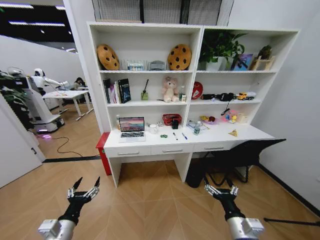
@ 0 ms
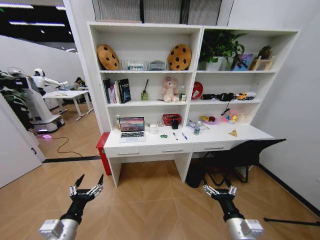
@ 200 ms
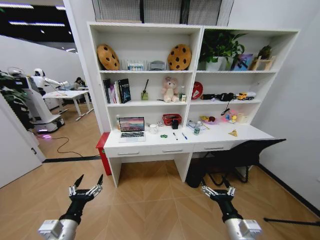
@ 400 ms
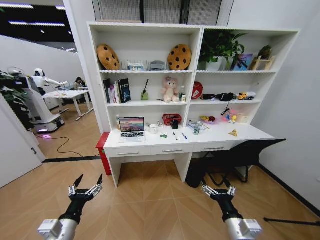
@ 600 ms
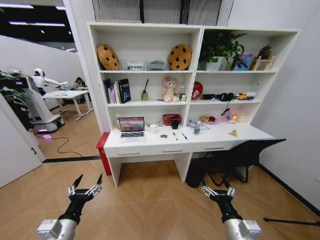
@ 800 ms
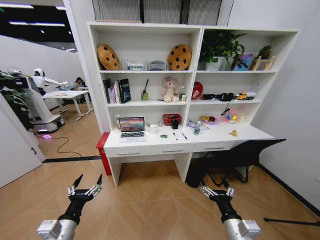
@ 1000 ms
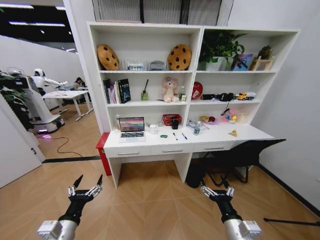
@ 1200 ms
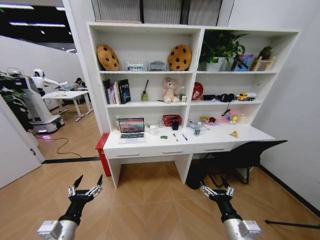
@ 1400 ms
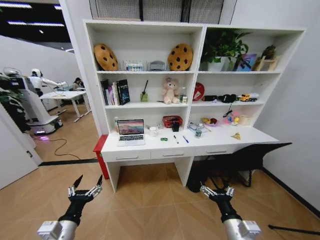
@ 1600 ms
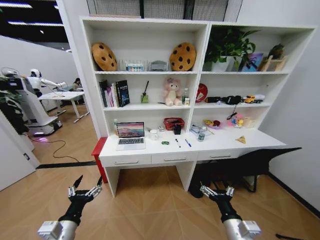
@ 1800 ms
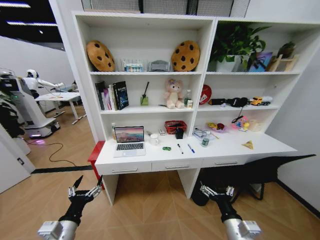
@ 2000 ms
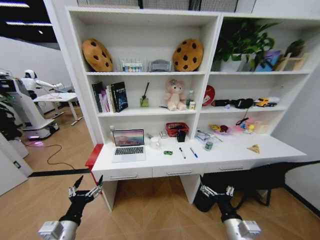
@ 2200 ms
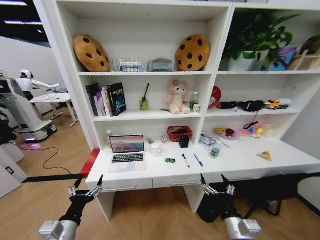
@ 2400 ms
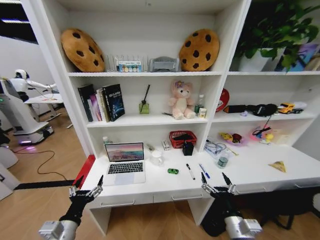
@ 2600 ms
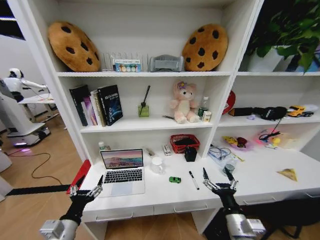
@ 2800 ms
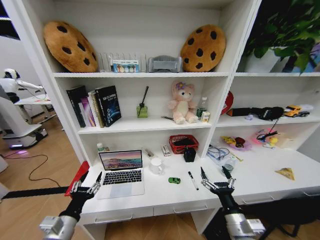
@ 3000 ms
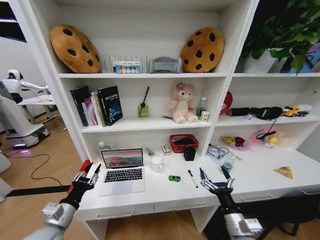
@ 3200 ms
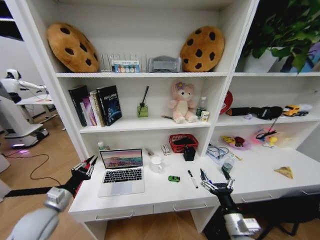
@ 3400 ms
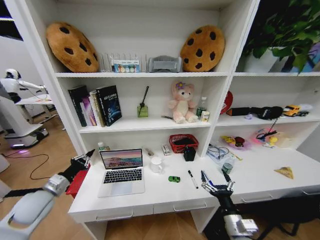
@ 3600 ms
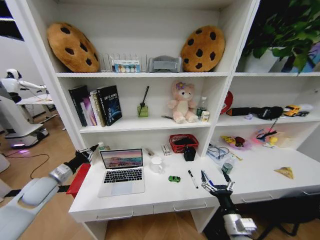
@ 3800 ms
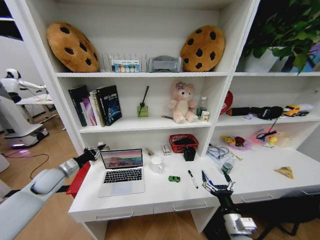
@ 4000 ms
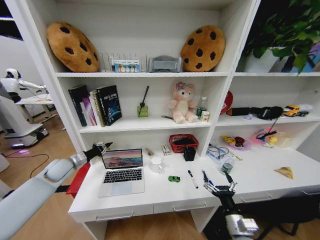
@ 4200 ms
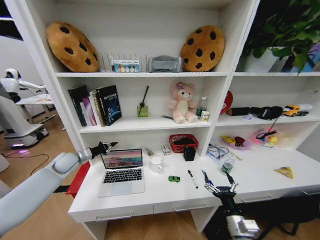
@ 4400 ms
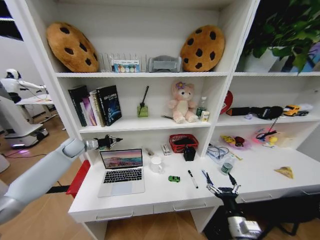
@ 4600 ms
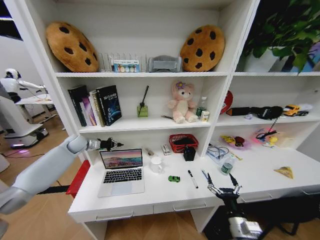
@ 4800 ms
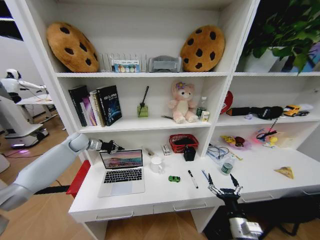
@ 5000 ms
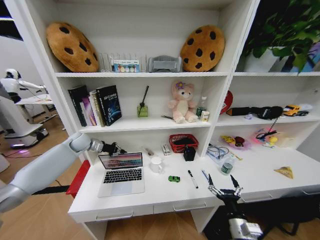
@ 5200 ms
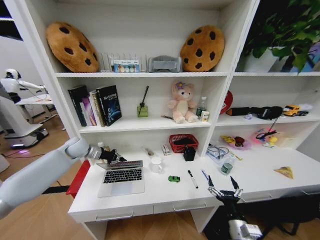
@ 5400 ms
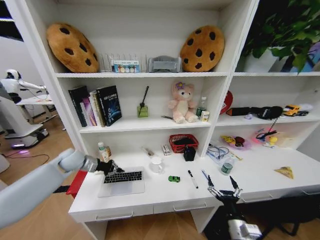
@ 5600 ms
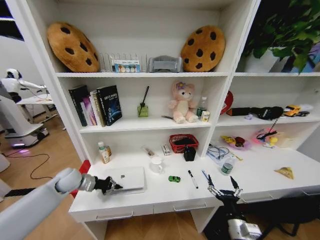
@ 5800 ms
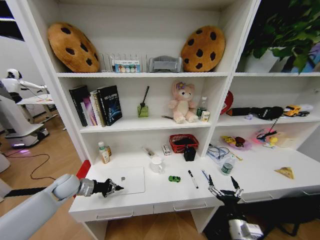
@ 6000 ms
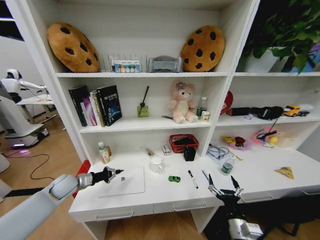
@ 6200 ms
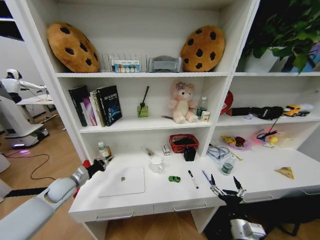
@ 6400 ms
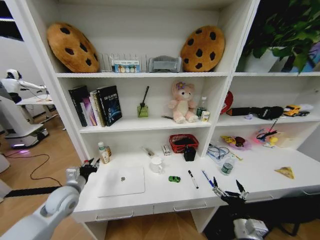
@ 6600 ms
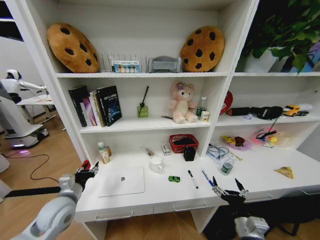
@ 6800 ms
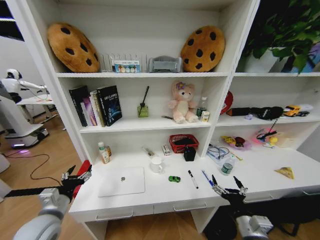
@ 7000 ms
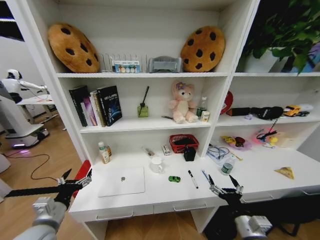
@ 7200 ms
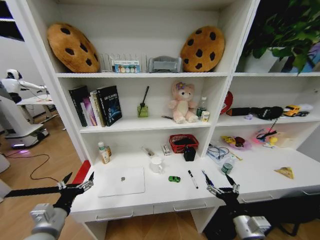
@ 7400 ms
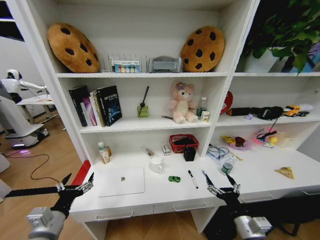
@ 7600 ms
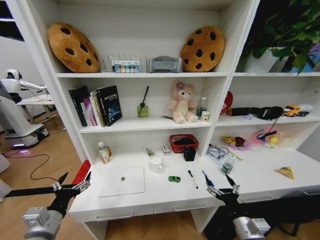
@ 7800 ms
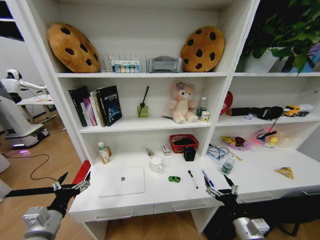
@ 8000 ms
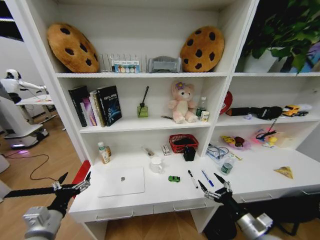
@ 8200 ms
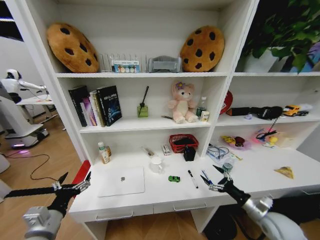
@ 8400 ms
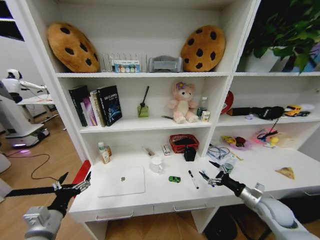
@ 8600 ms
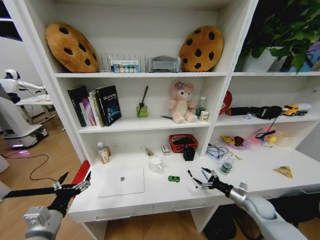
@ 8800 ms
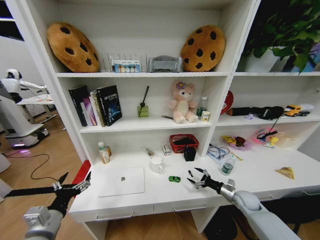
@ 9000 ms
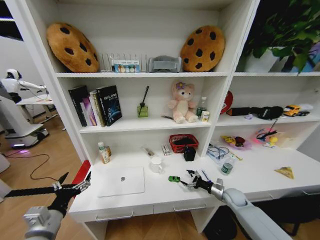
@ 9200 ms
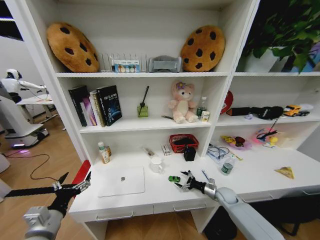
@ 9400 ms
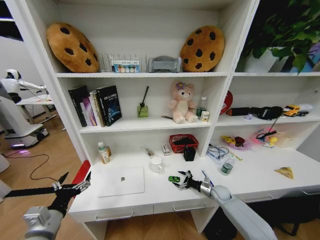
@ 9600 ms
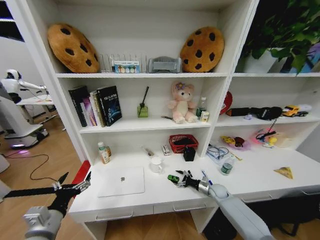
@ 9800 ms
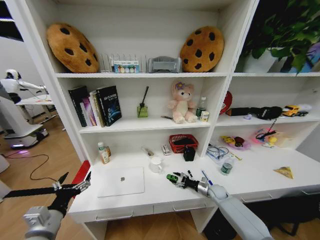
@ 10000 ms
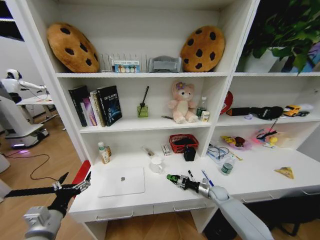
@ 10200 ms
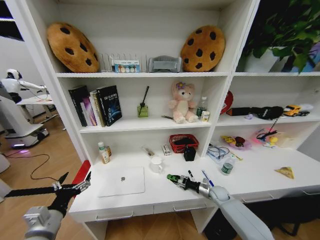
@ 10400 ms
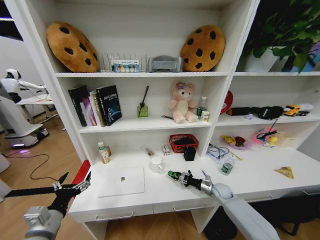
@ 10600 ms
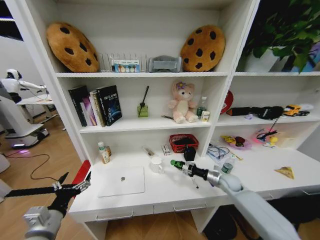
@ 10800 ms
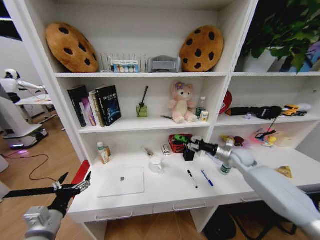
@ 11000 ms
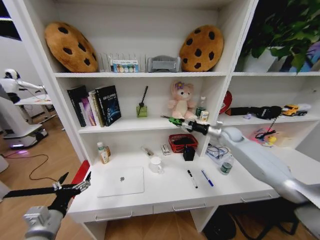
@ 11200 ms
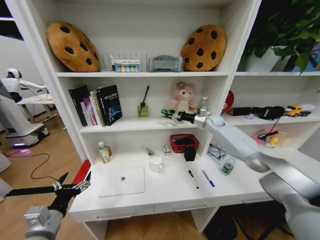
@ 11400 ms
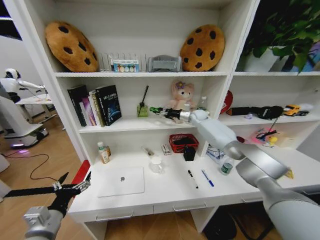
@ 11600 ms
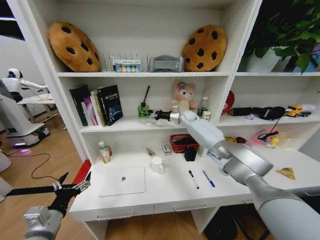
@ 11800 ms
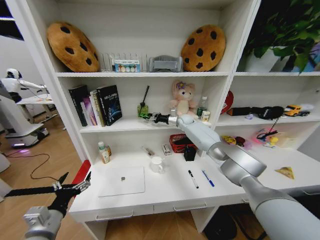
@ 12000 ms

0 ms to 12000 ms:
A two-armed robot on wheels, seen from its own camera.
Task of the whole recording: Organize the objects on the table.
3000 ms to 4400 ms: The left gripper shifts approximately 30 cm forward, and closes up.
4400 ms to 6000 ms: The left gripper shifts about 10 cm backward and downward.
6000 ms to 7600 ms: The left gripper is displaced backward by some 20 cm, and opens up.
7600 ms to 9000 ms: The right gripper travels forward, to the right and downward by roughly 25 cm.
9000 ms to 10400 ms: The right gripper moves to the left, downward and forward, approximately 10 cm, and closes its fingers.
10400 ms to 12000 ms: The right gripper is displaced upward, forward and to the left by about 50 cm.

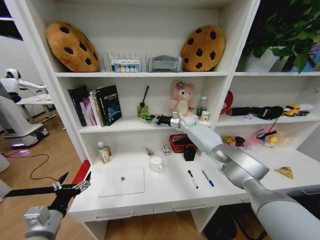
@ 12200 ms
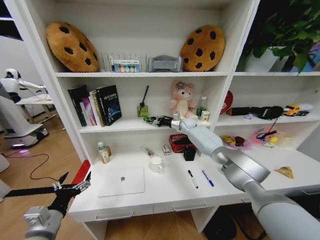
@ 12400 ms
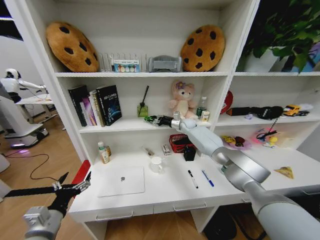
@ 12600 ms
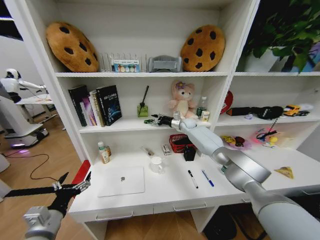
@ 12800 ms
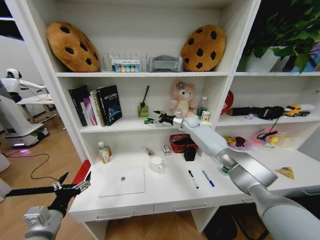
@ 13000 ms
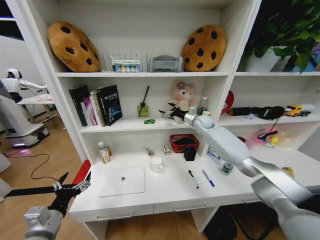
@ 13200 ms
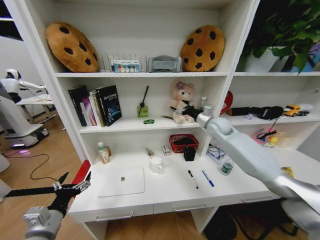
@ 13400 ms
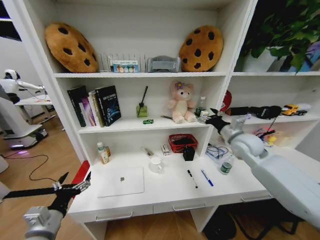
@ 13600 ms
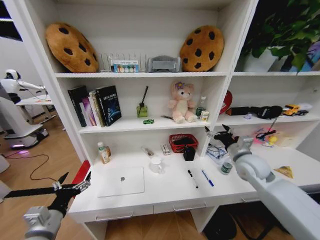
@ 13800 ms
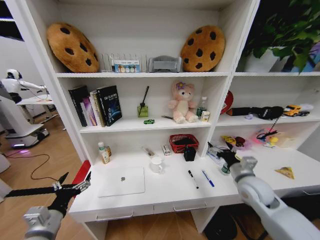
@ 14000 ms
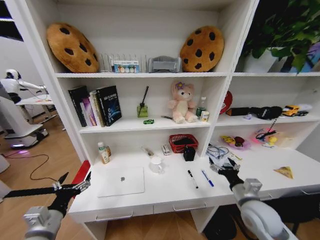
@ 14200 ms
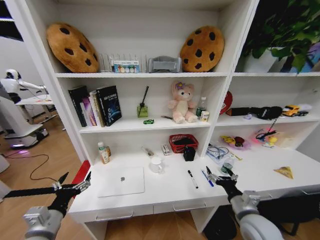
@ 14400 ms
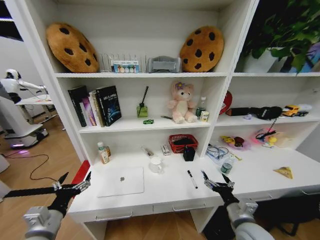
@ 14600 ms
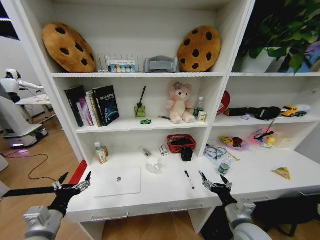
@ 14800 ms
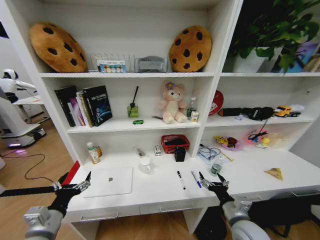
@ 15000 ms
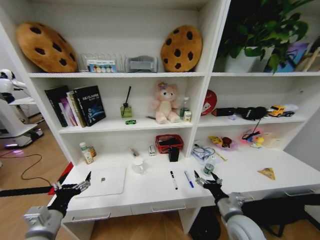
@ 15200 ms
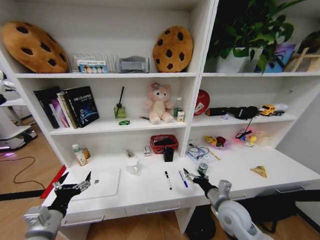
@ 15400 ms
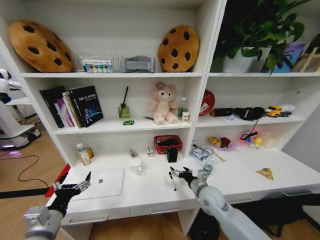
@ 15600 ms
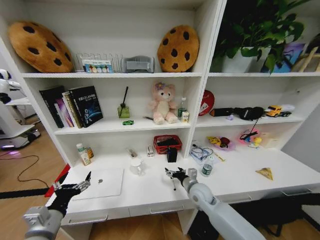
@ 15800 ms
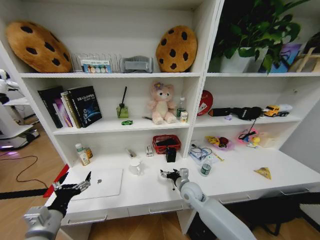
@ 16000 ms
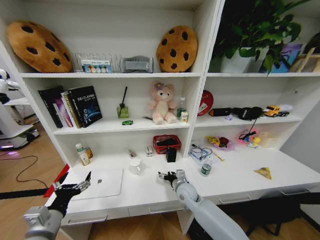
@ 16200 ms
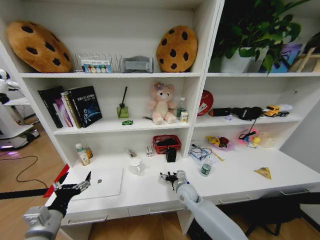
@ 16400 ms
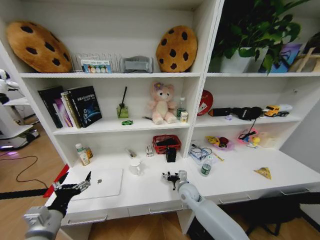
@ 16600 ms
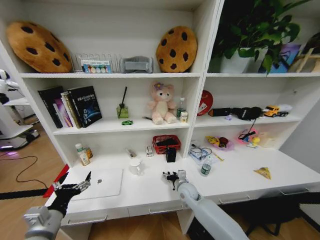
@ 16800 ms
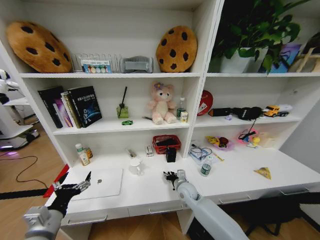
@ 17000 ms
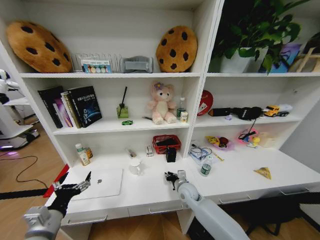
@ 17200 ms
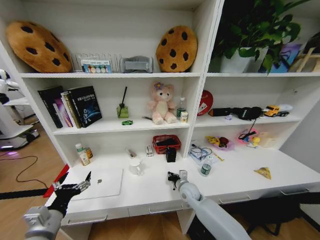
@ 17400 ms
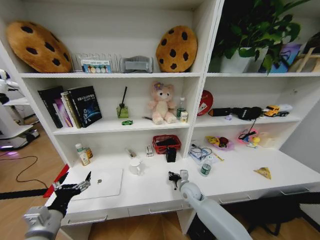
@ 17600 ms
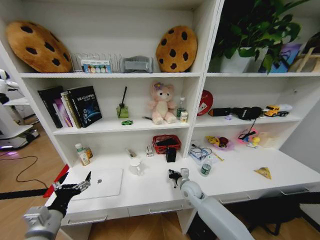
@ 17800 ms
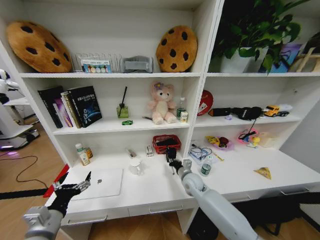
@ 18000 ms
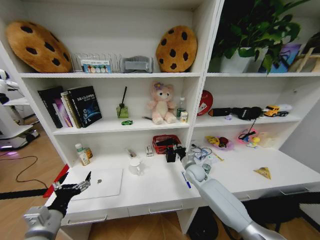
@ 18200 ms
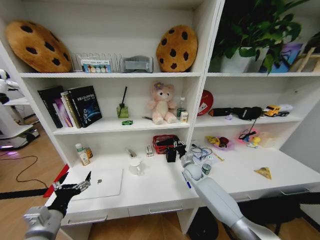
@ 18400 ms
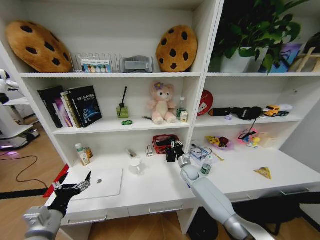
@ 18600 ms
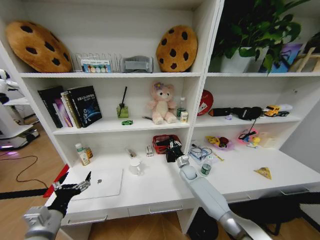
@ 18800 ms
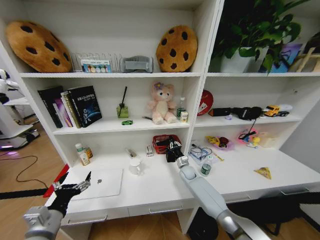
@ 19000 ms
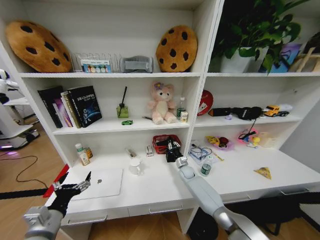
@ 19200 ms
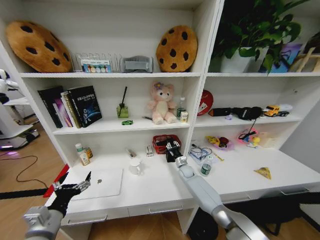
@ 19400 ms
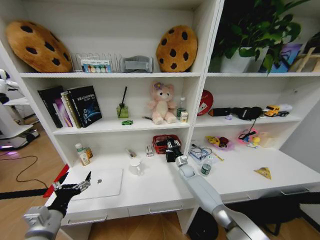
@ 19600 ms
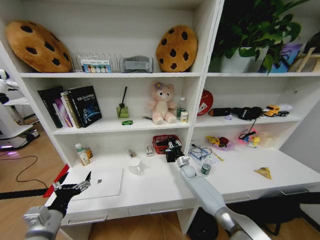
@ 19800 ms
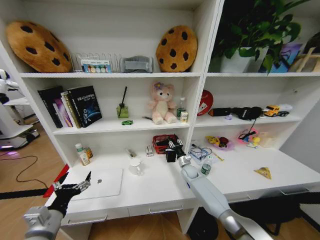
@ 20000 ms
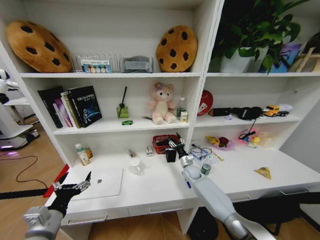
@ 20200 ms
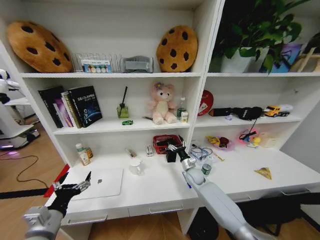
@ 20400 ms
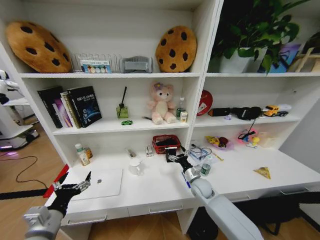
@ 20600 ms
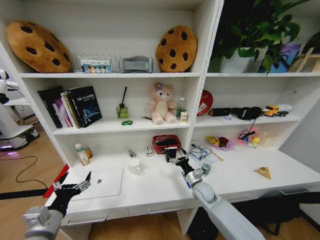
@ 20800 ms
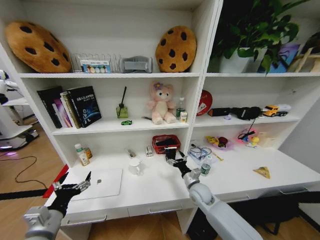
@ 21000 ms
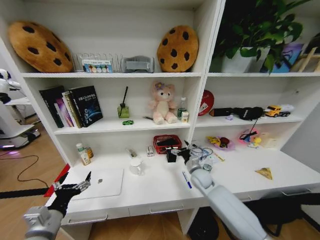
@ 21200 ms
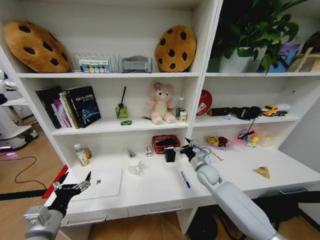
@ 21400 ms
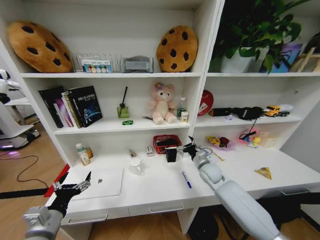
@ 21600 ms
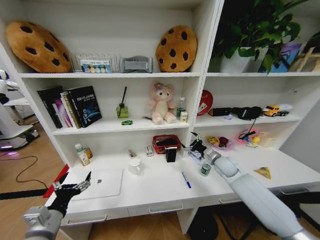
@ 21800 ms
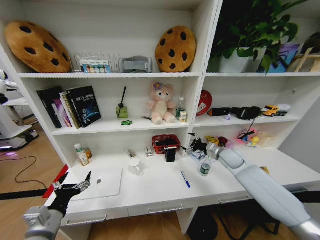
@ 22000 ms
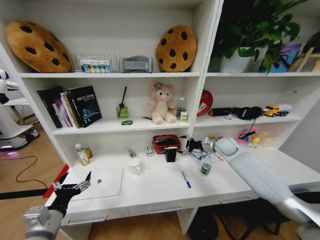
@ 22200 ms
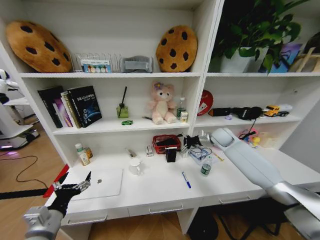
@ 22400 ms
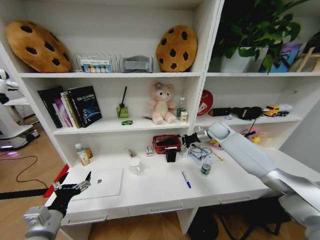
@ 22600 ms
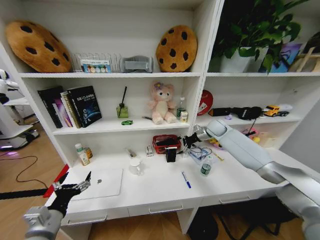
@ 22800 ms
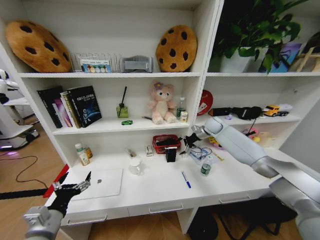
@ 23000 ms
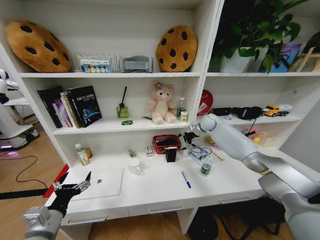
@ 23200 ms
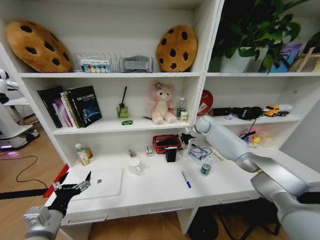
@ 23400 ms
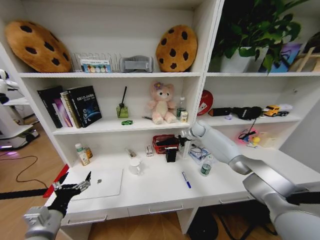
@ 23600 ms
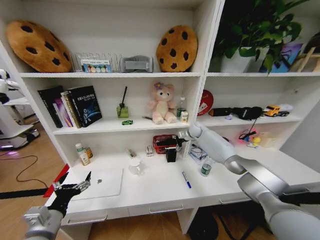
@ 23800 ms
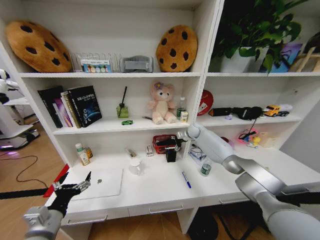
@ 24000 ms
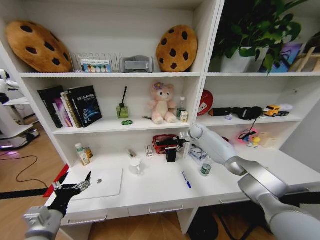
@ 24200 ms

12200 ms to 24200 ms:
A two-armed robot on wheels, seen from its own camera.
Task of the whole recording: Organize the objects on the table.
12200 ms to 13800 ms: The right gripper heads backward and to the right, covering approximately 35 cm, and opens.
13800 ms to 15200 ms: The right gripper heads backward, downward and to the left, covering roughly 20 cm.
15200 ms to 16600 ms: The right gripper is displaced forward, to the left and downward by about 20 cm.
16600 ms to 18200 ms: The right gripper heads forward and to the right, covering some 10 cm, and closes up.
18200 ms to 19800 ms: The right gripper is displaced downward and forward by approximately 10 cm.
19800 ms to 21200 ms: The right gripper is displaced backward and upward by about 15 cm, and opens.
21200 ms to 22600 ms: The right gripper travels upward, forward and to the right by about 30 cm.
22600 ms to 24200 ms: The right gripper shifts approximately 10 cm forward, to the left and downward.
